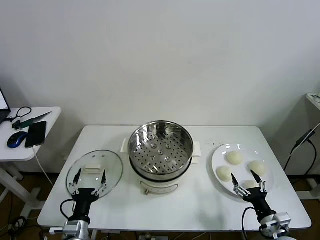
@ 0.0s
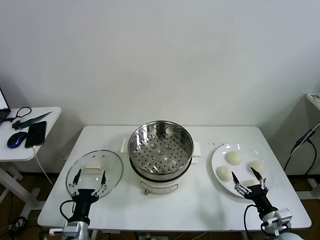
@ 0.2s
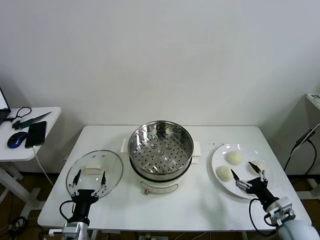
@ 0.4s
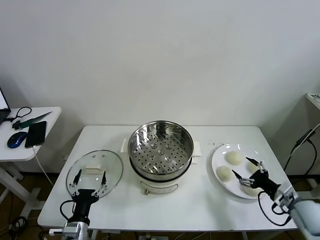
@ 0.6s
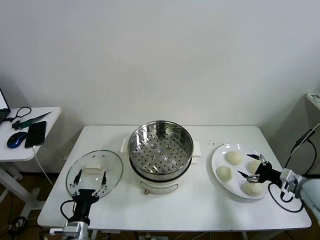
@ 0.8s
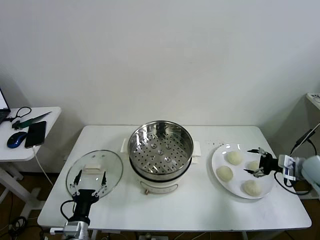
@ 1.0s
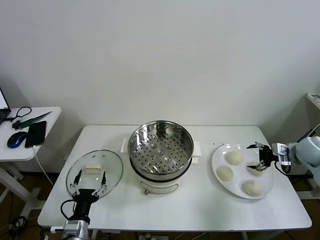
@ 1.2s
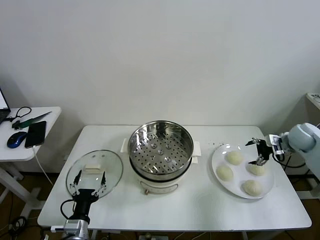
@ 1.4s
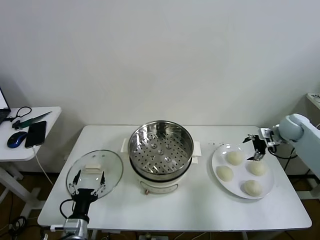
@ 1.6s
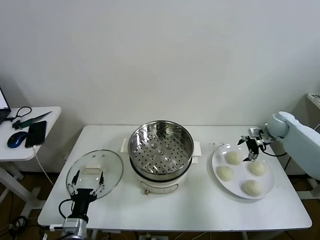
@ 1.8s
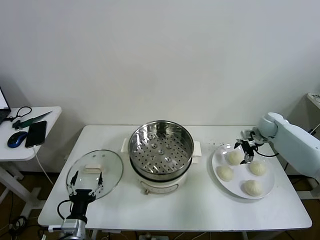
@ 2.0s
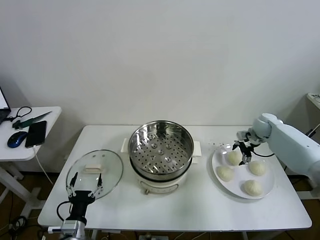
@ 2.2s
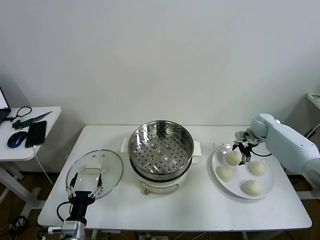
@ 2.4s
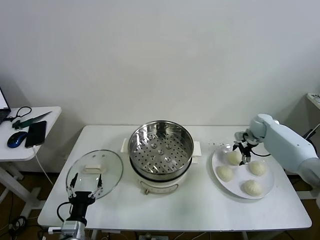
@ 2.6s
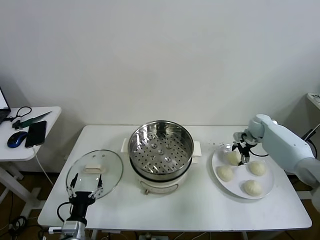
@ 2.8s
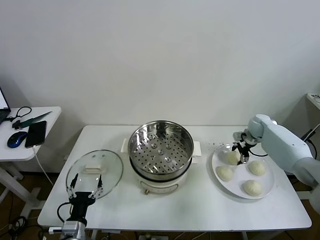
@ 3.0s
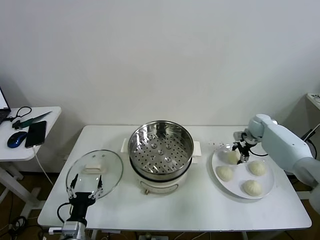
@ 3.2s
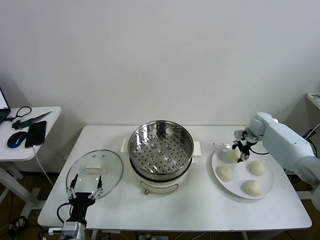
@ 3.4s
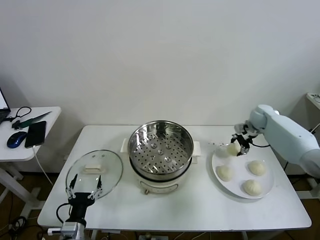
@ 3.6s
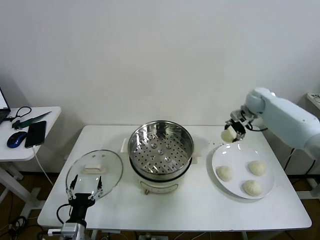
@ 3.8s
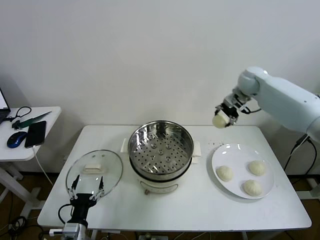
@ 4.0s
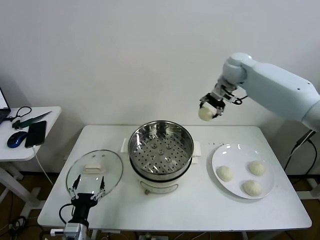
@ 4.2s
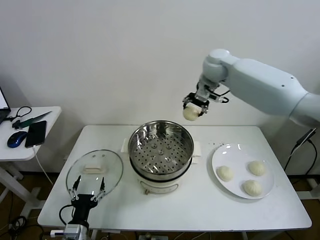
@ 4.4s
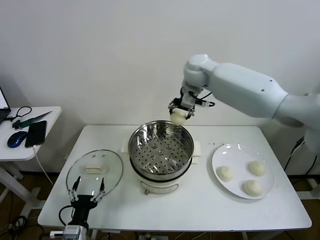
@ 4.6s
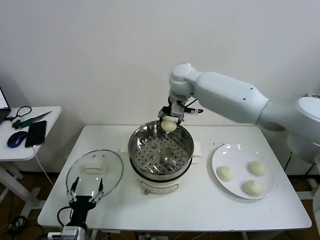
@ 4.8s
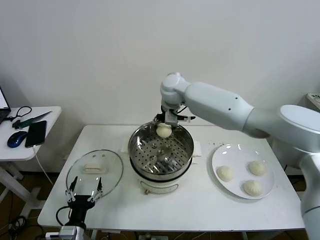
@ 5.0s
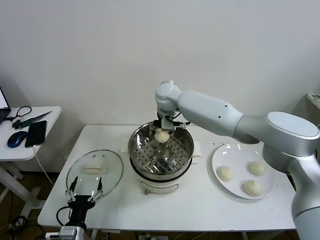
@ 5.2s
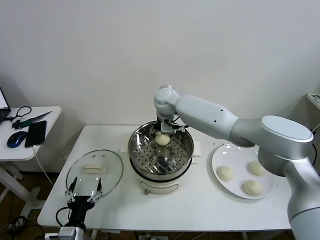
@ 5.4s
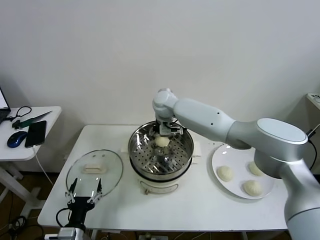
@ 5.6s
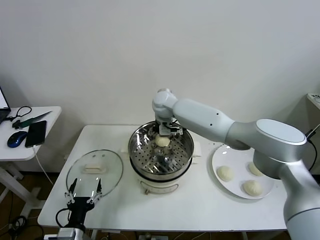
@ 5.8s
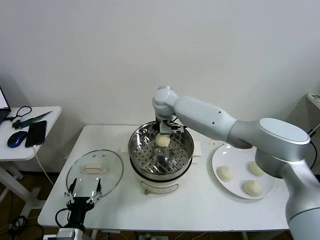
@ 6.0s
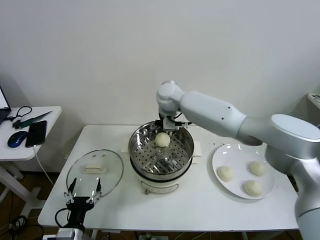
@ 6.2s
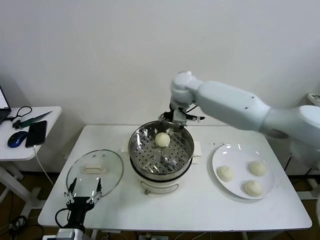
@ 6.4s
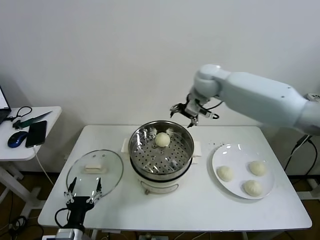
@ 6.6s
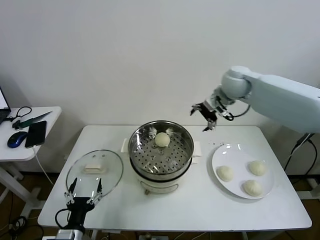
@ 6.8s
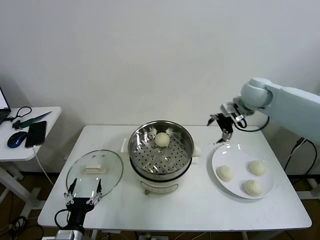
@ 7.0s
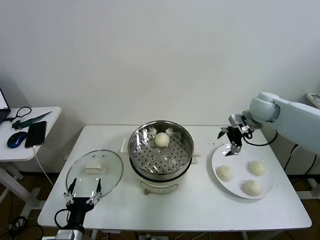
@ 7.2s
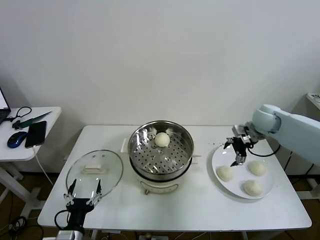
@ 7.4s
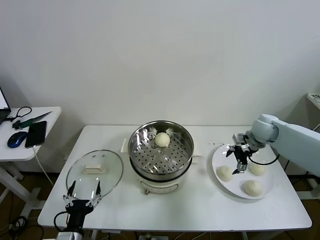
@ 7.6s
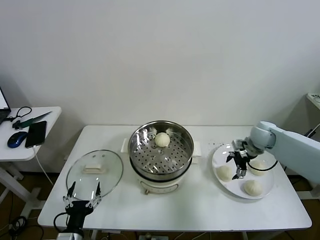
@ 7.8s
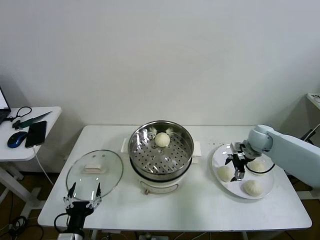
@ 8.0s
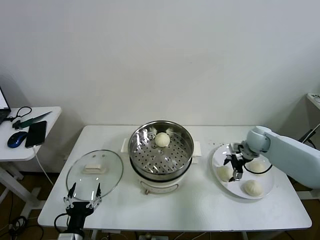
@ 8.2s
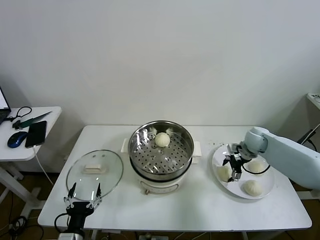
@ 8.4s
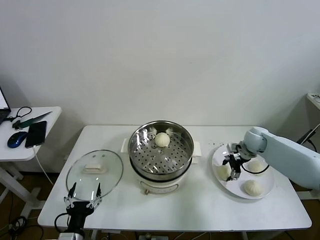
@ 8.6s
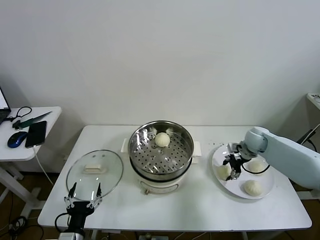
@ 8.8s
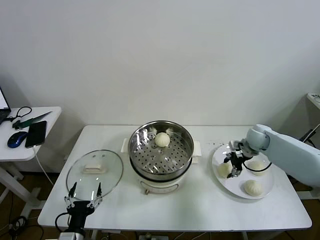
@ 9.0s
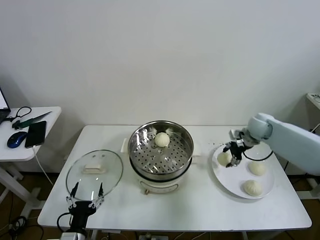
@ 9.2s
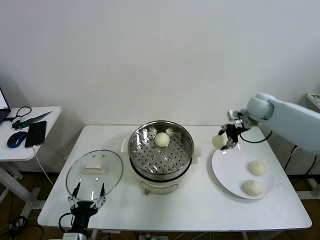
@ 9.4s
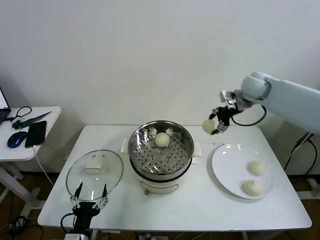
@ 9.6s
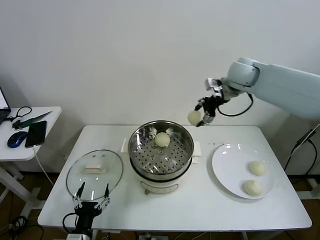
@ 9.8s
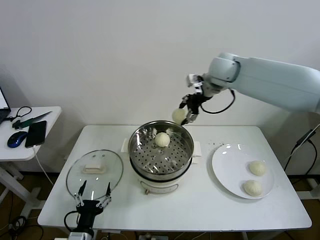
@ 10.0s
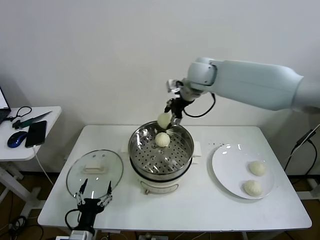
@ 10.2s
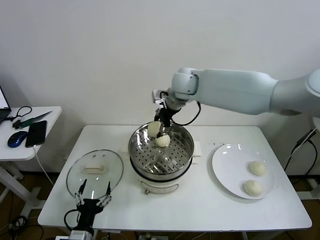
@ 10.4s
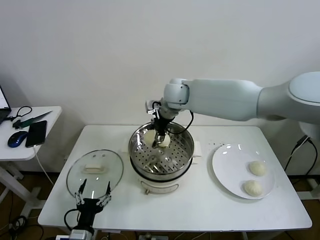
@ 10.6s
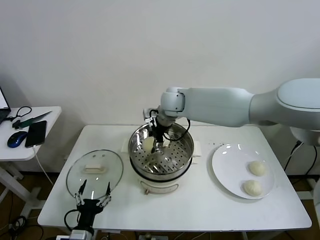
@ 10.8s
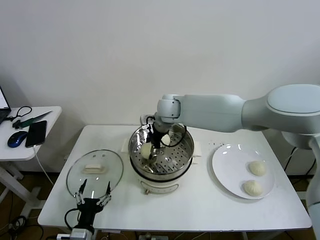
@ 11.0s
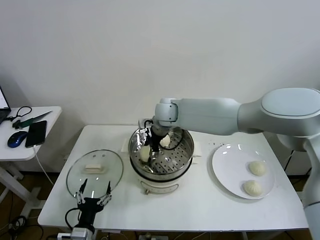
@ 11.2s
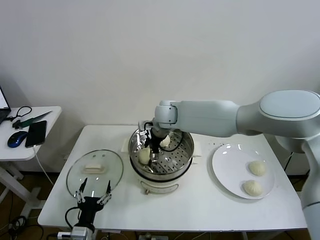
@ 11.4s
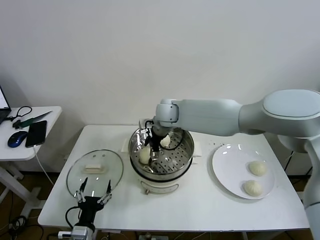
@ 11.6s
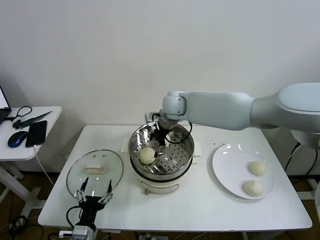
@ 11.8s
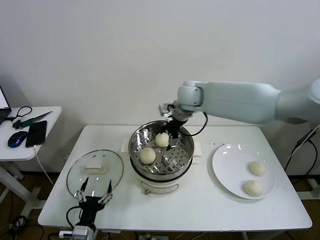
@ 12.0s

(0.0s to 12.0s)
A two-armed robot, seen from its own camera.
Task of the whole recording: take steamed baozi put them in steamer then cover it.
Step, 0.0s - 3.2s: Grasp the baozi in the plate with right gripper.
Step, 3.4s - 5.8s: Place the baozi on the steamer with right gripper.
Step, 6.0s - 8.8s: Grasp the baozi in the plate with right gripper.
Step, 9.0s - 11.4s: Place the baozi on the steamer with right gripper.
1.6s - 3.0s: The right gripper goes some 10 cm downward and forward, and closes its fingers.
3.0s - 4.4s: The right gripper moves to the left and upward, about 40 cm.
4.4s - 6.0s: The right gripper is displaced to the left and downward by some 15 cm, and opens.
6.0s - 7.6s: The right gripper moves to the right, roughly 35 cm.
7.6s - 9.0s: The right gripper closes.
9.0s - 10.4s: The right gripper shifts some 35 cm to the left and upward.
10.4s - 12.0s: The right gripper travels to the right by roughly 5 cm, and opens its fingers.

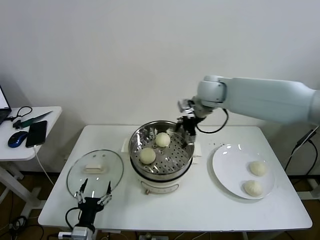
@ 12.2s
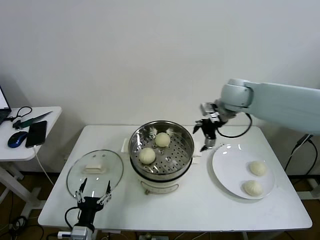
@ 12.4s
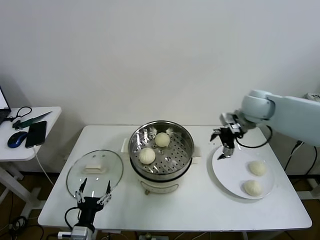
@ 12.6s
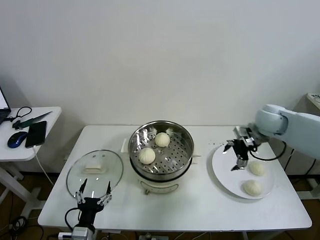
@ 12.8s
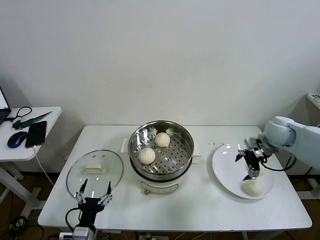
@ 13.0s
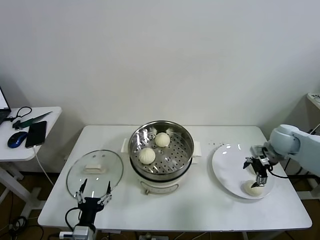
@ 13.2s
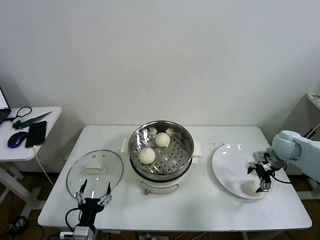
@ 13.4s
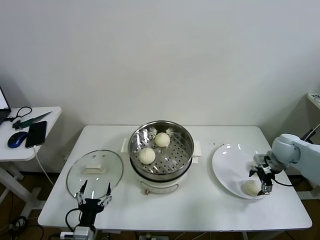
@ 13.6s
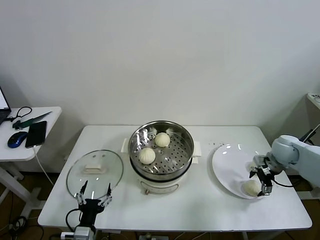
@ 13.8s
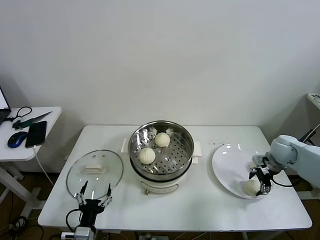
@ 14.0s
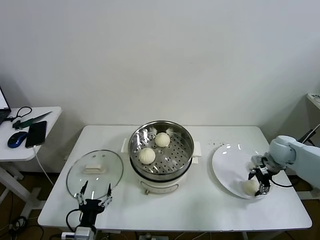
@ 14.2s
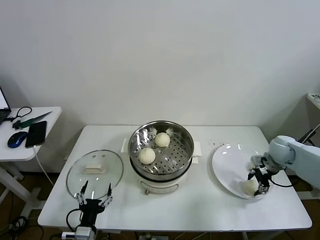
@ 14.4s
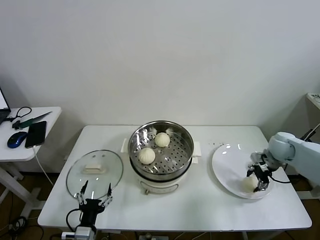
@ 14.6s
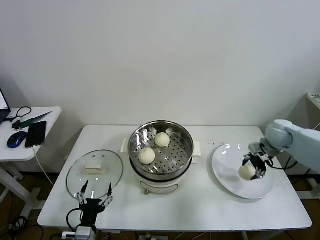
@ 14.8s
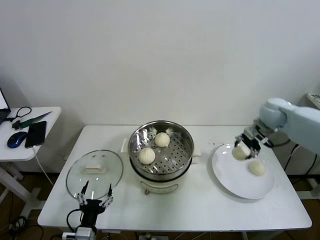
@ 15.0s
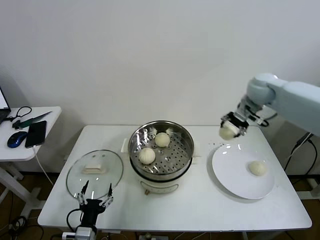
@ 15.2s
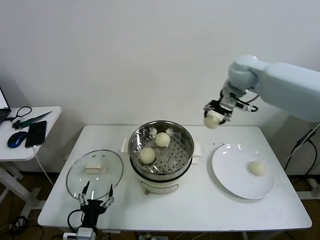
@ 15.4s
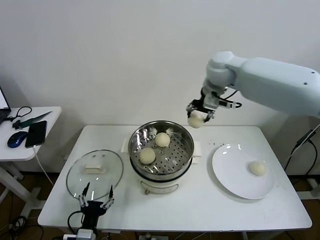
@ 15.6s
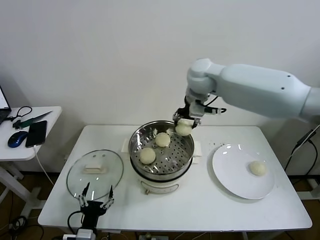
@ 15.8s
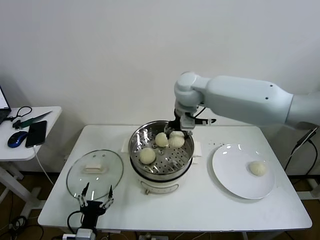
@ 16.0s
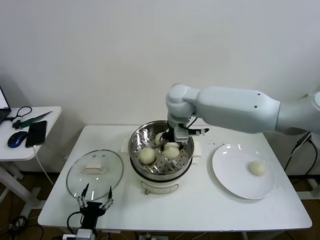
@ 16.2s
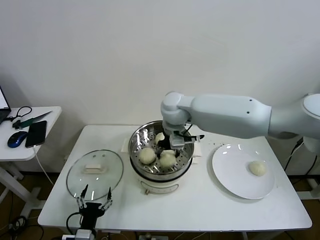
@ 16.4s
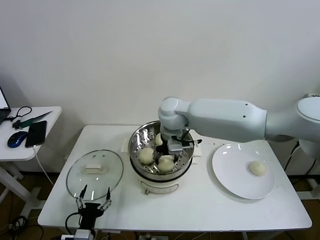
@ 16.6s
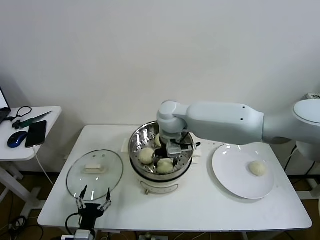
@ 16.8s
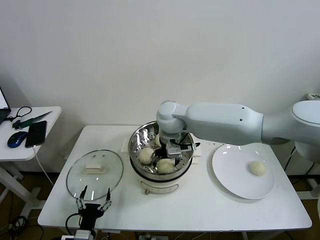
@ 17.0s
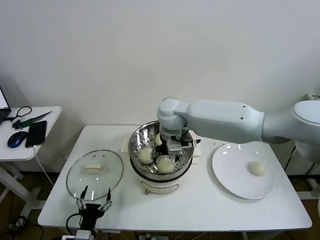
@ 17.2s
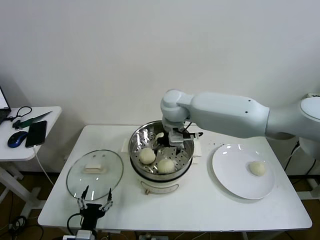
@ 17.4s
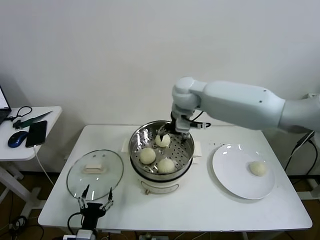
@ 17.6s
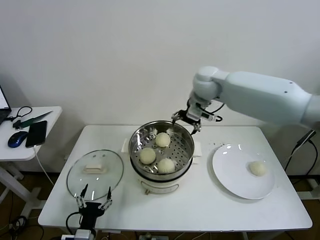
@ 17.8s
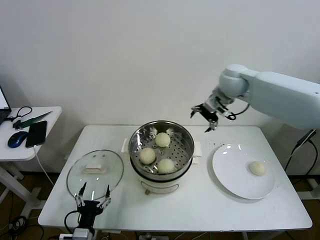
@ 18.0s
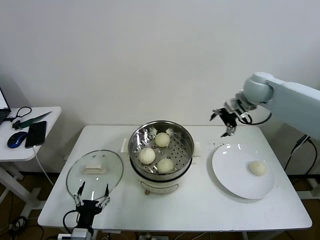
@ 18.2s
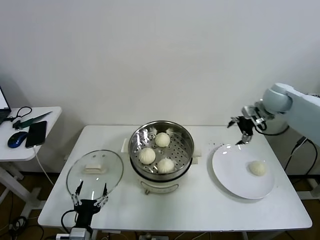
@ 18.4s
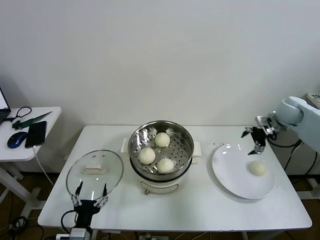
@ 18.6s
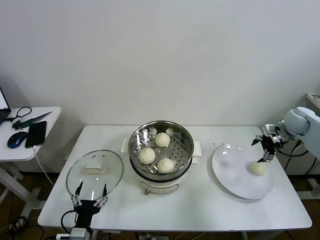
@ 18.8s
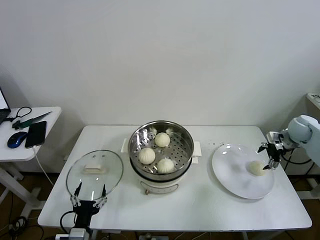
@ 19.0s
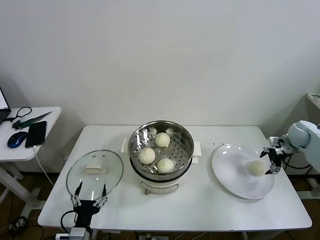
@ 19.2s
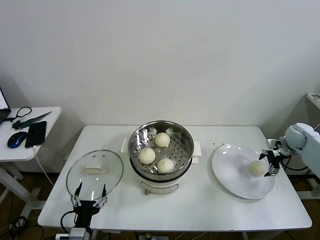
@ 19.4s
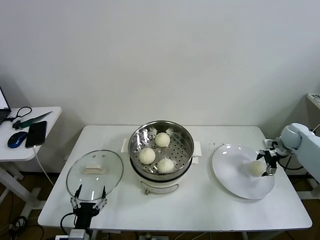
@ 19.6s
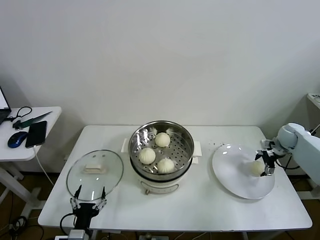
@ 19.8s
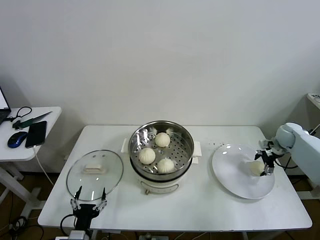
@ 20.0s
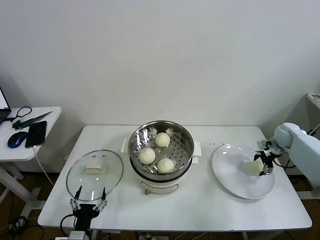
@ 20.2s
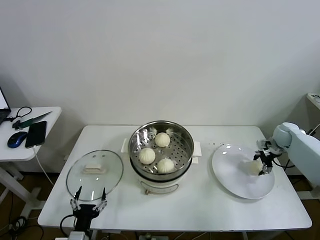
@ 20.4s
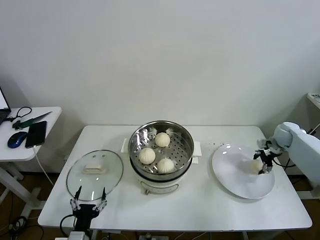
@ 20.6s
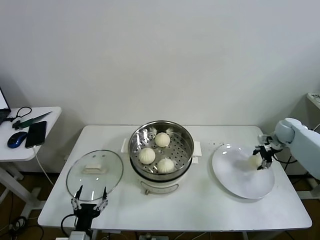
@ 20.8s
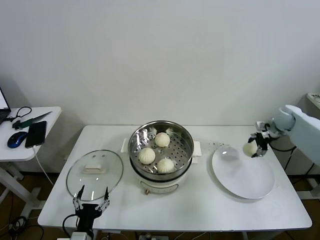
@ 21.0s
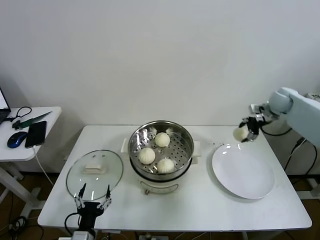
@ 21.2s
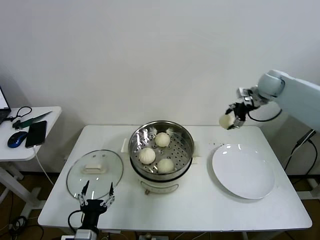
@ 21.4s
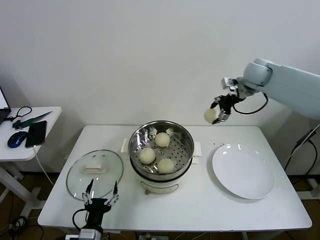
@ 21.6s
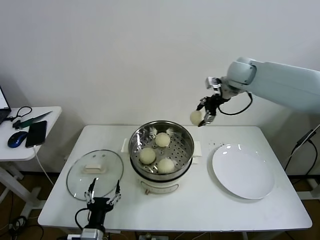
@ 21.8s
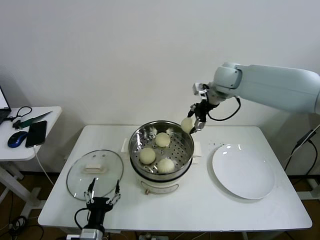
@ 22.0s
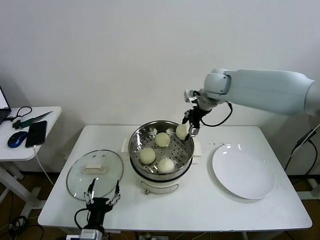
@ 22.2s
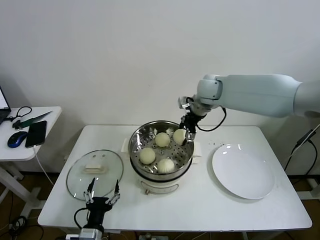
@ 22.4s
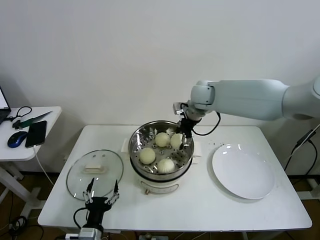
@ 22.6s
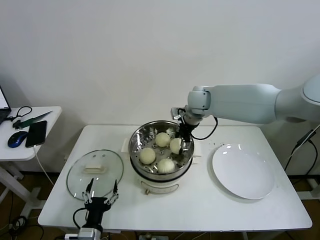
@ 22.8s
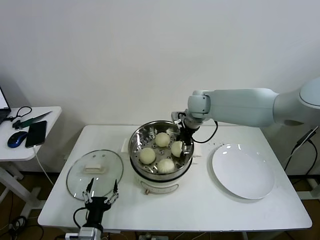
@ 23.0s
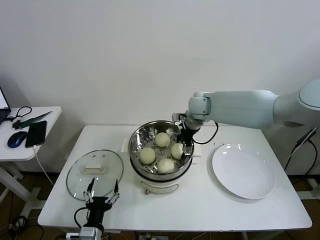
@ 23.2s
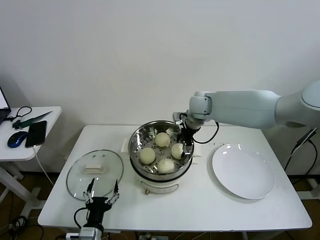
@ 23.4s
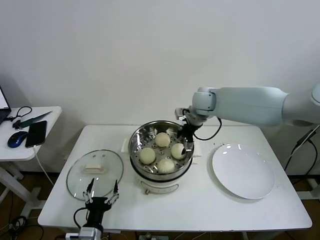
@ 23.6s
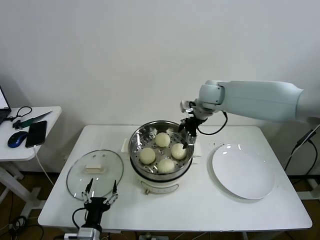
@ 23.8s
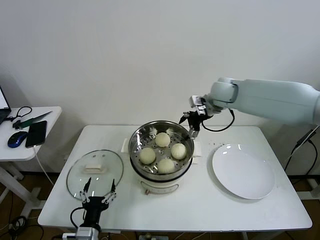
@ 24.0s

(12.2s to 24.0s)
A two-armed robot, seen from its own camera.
Task of the whole recording: take steamed baozi put them in steamer then cover it.
Step, 12.2s - 14.4s: Grasp the baozi in the plate with right gripper.
Step, 14.6s - 17.0s: Place the baozi on the steamer with right gripper.
Step, 17.2s - 20.4s: Grasp the baozi in the plate with right gripper.
Step, 20.8s - 23.2s: Place the baozi on the steamer with right gripper.
12.2s - 13.6s: The right gripper is displaced to the right and downward by some 30 cm.
13.6s - 15.2s: The right gripper shifts about 25 cm upward, to the left and forward, and closes its fingers.
15.2s - 16.6s: The right gripper heads to the left, covering approximately 25 cm.
16.6s - 18.2s: The right gripper heads to the right, covering roughly 30 cm, and opens its fingers.
18.2s - 19.6s: The right gripper travels downward and to the right by roughly 25 cm.
19.6s - 21.0s: The right gripper heads upward, covering some 5 cm, and closes its fingers.
21.0s - 22.6s: The right gripper goes some 35 cm to the left.
22.6s - 24.0s: The right gripper is displaced to the right by roughly 5 cm, and opens.
